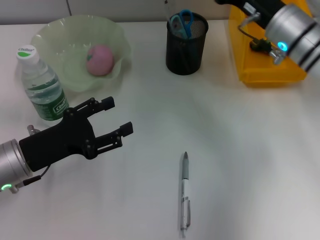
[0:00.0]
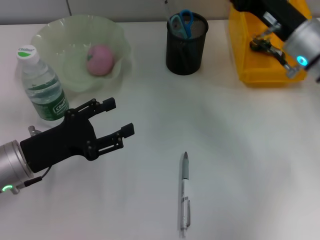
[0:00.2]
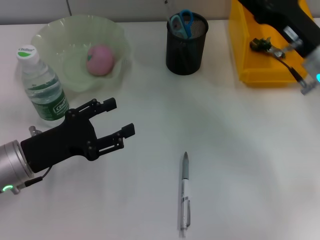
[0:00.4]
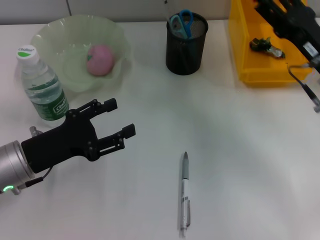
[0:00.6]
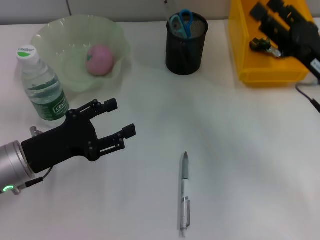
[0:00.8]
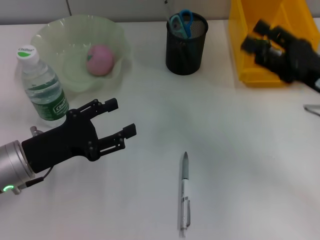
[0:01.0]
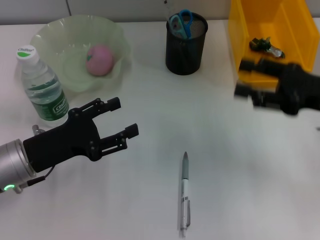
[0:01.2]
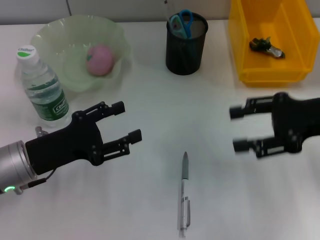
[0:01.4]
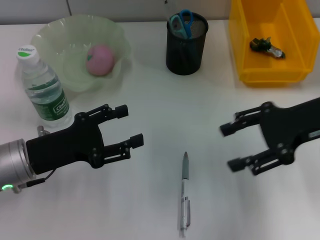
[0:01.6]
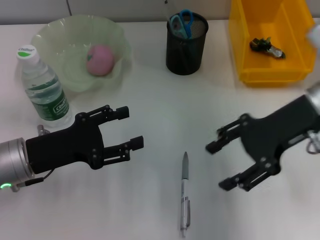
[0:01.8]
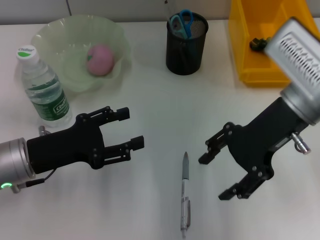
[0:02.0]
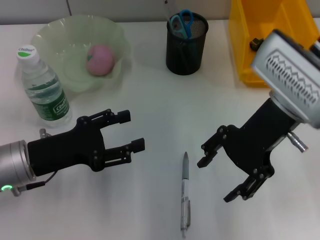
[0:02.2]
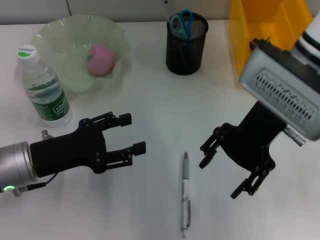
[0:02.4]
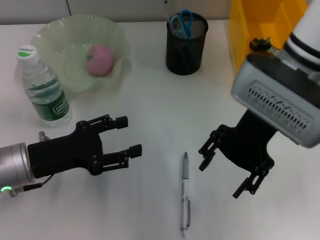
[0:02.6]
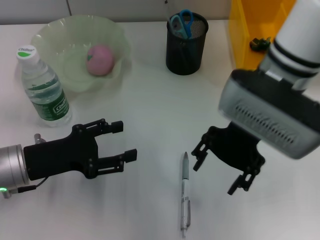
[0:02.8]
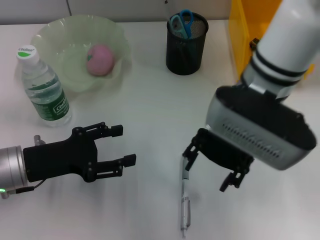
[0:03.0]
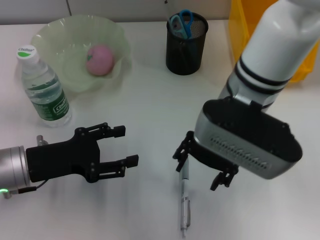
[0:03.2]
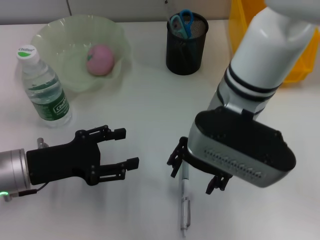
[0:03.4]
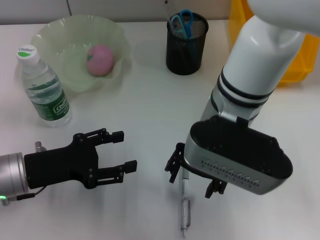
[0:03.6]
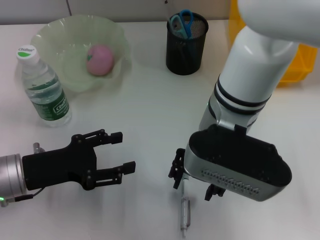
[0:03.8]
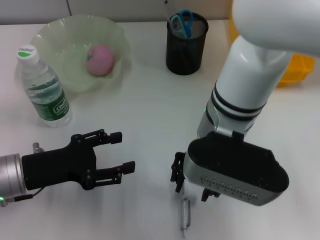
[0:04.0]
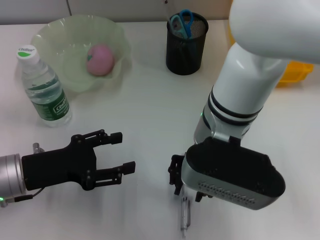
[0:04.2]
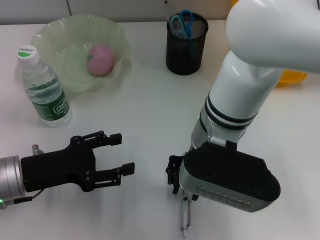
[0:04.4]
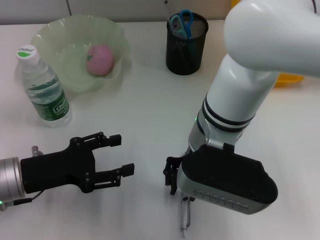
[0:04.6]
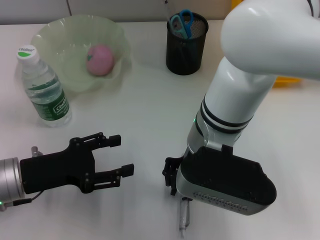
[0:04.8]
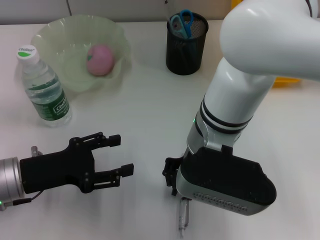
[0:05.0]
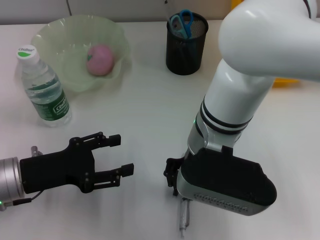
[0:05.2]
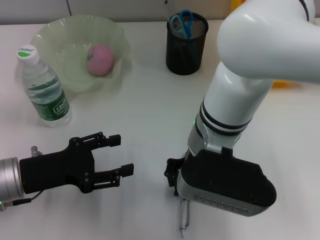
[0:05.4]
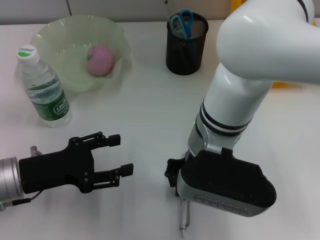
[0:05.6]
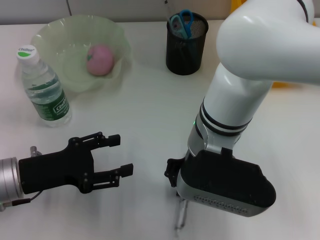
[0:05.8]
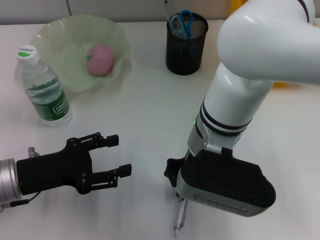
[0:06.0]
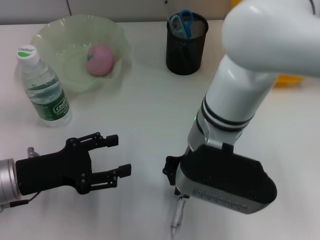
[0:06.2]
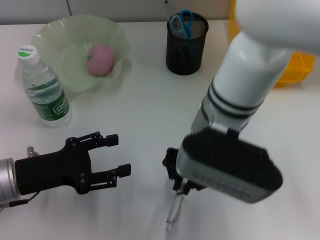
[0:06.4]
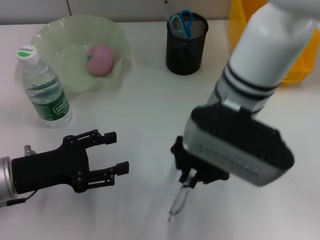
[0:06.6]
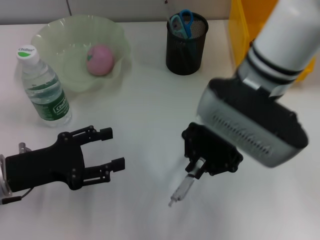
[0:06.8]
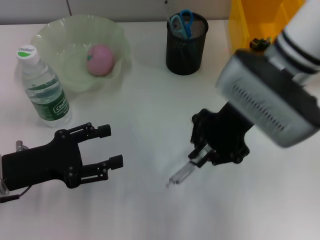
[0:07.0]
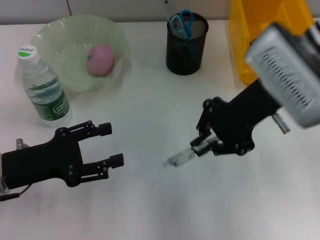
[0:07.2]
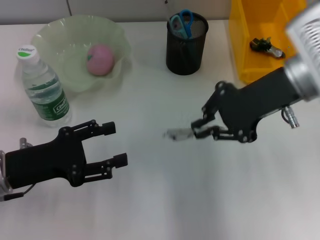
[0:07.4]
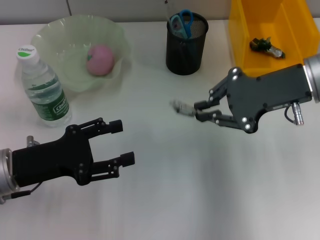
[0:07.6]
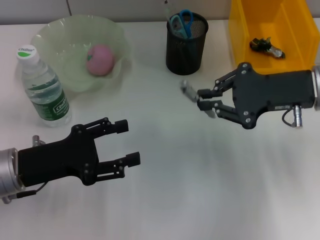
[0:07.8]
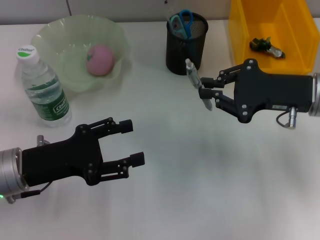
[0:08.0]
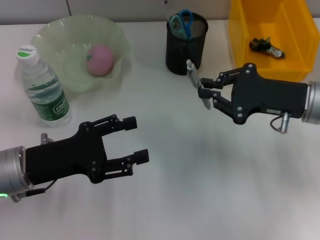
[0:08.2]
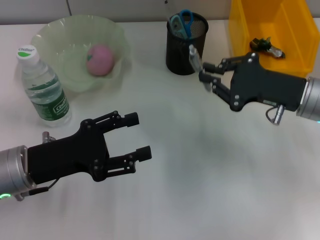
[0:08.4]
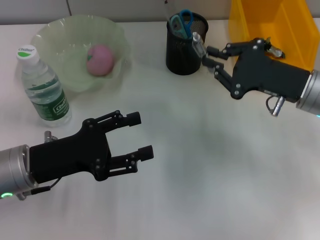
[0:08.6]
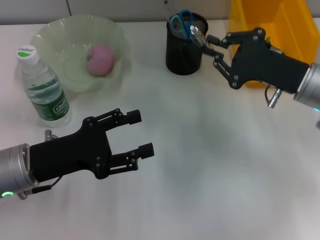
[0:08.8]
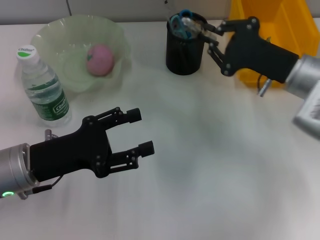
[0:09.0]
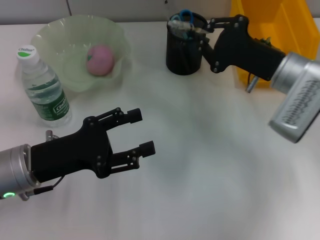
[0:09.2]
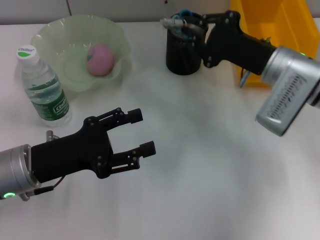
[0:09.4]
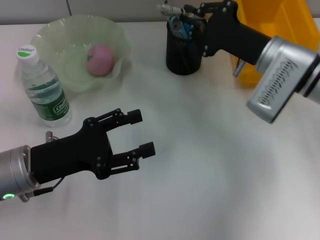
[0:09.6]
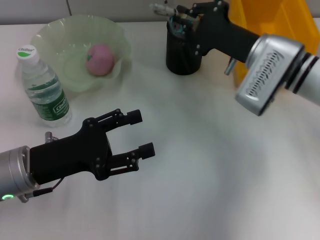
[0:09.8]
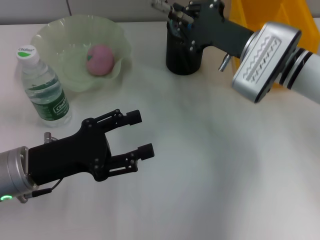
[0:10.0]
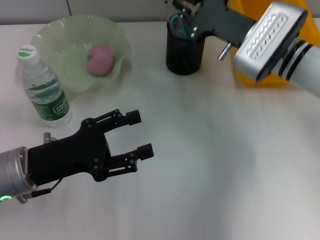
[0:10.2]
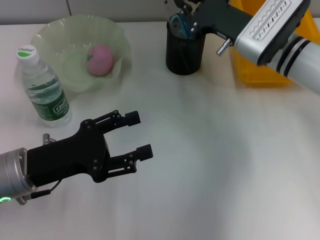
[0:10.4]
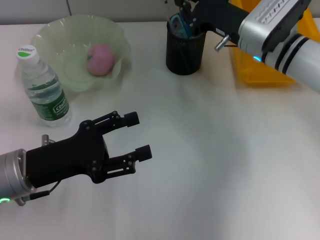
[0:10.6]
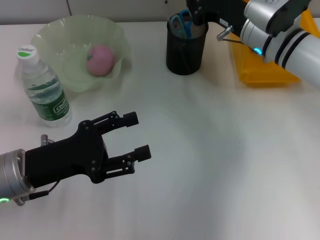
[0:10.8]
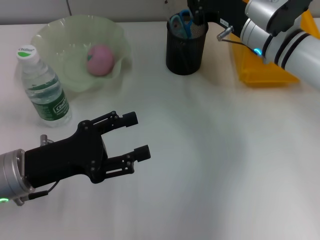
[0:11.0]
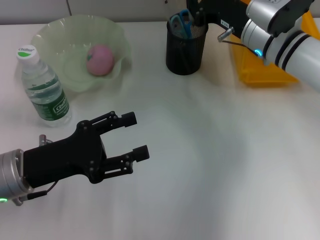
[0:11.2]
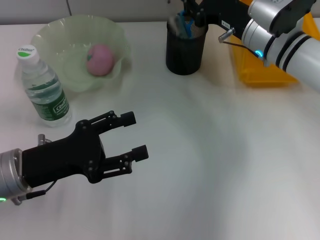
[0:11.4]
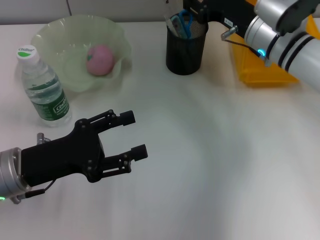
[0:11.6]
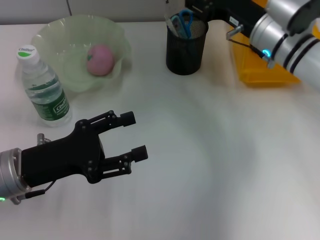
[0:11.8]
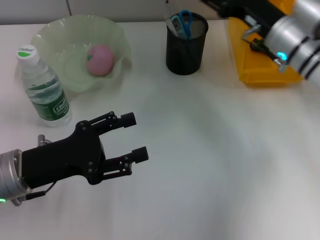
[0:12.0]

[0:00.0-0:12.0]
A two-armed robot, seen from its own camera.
Step, 0:00.0 to 0:05.8: Grab the gray spring-action pen with the right hand.
Step, 0:06.0 to 0:11.6: Place the gray spring-action pen into the pen holder with the right hand.
0:00.0 to 0:01.6: The right gripper goes roughly 10 cm backward and to the right.
0:01.6 to 0:03.0: The right gripper shifts roughly 15 cm to the left.
0:03.0 to 0:04.4: The right gripper moves roughly 5 cm, and closes.
0:04.4 to 0:06.0: Both grippers stay put.
0:06.0 to 0:07.6: The right gripper moves to the right, roughly 15 cm.
0:07.6 to 0:09.0: The right gripper shifts about 5 cm downward.
0:09.0 to 0:10.4: The right gripper heads forward and to the left, covering about 10 cm.
0:10.4 to 0:12.0: The right gripper opens up.

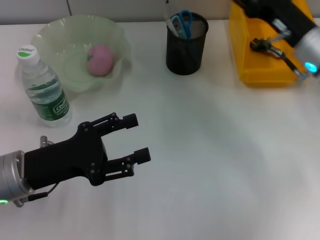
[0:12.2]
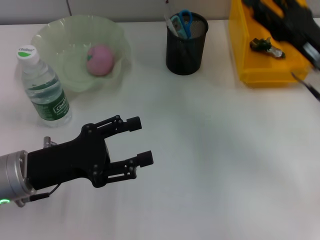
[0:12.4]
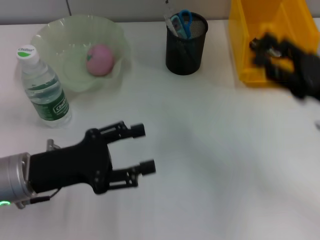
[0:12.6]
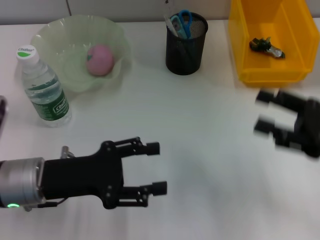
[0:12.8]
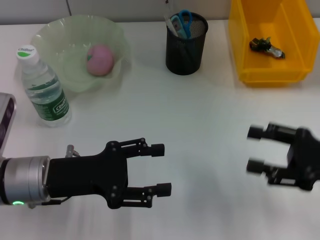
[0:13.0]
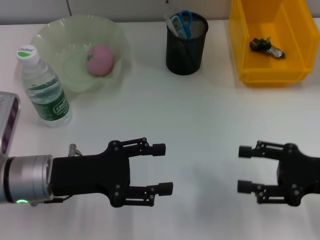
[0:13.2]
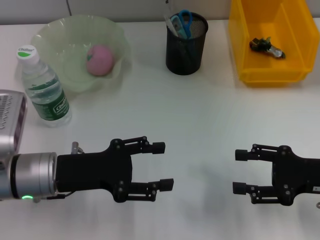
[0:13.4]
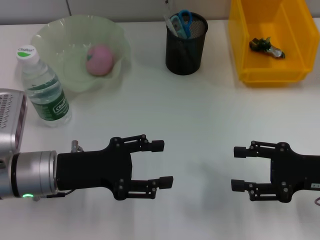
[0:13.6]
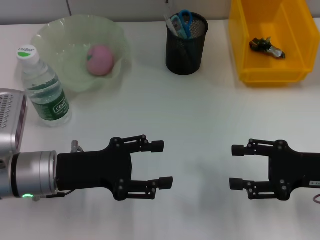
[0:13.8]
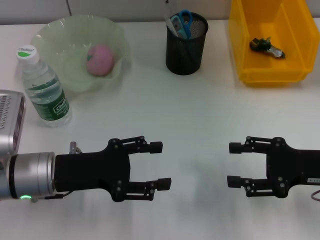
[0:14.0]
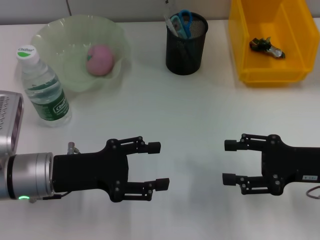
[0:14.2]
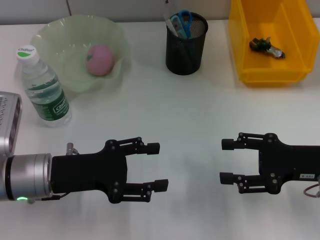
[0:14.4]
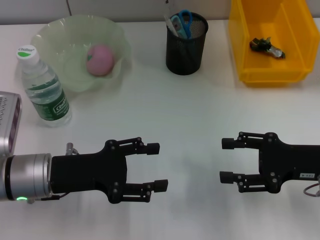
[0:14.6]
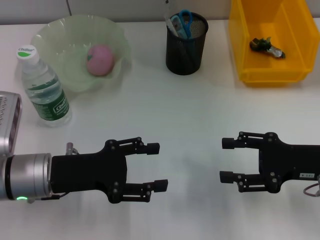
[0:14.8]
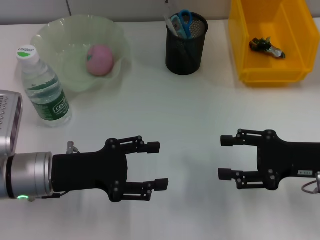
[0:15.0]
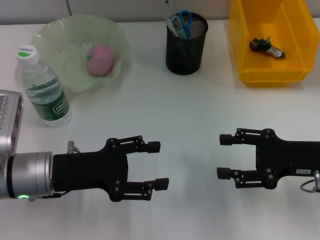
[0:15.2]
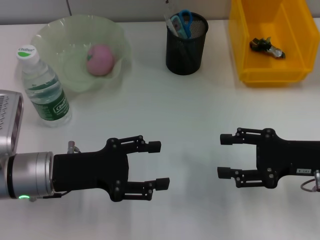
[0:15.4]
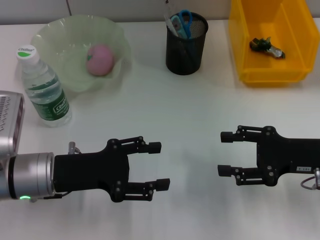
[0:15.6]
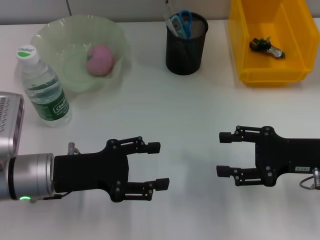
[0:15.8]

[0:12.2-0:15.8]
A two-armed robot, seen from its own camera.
0:12.2 to 0:14.0: The right gripper moves backward and to the right, some 15 cm.
0:14.0 to 0:15.8: The grippers stay close to where they were, moving slightly.

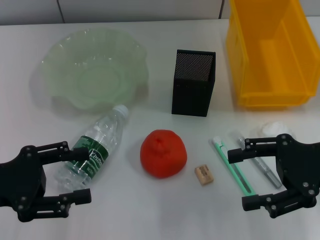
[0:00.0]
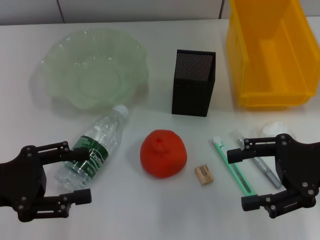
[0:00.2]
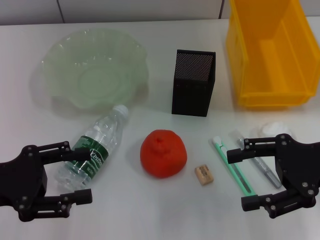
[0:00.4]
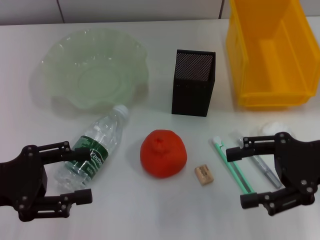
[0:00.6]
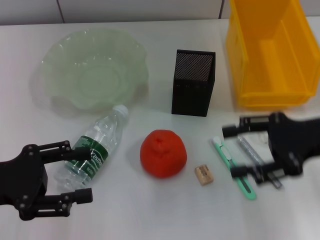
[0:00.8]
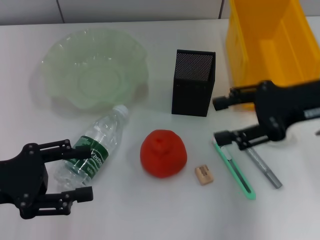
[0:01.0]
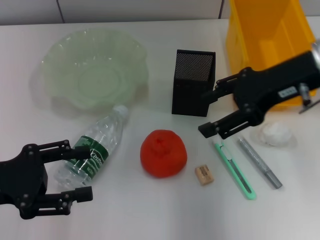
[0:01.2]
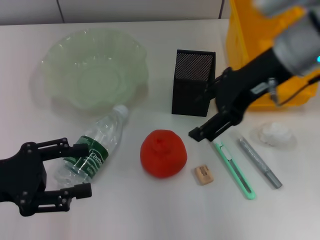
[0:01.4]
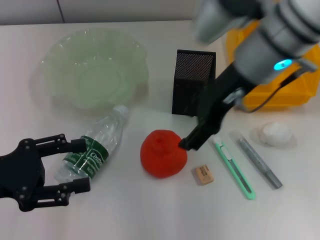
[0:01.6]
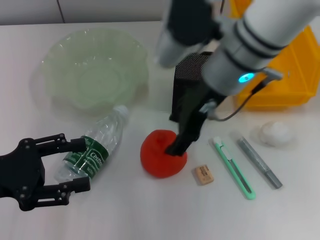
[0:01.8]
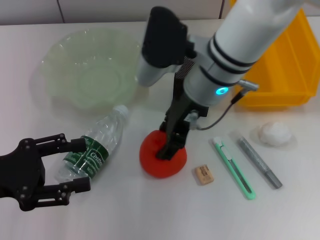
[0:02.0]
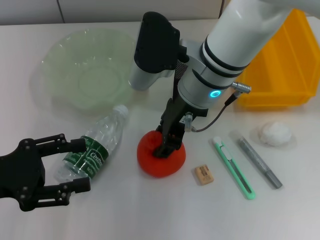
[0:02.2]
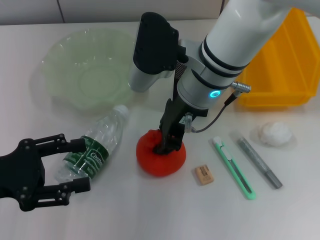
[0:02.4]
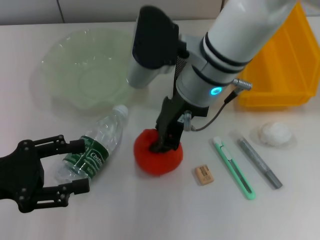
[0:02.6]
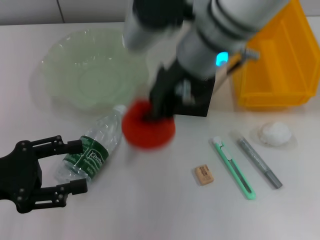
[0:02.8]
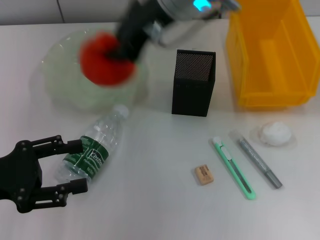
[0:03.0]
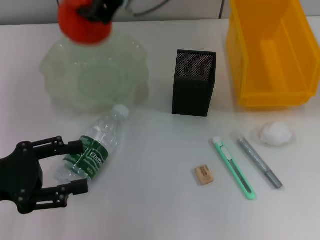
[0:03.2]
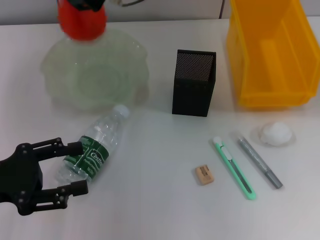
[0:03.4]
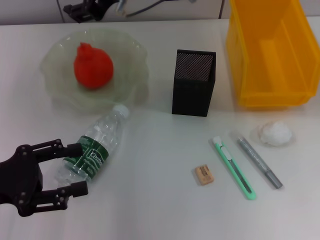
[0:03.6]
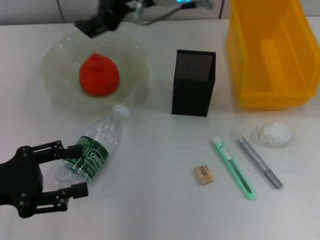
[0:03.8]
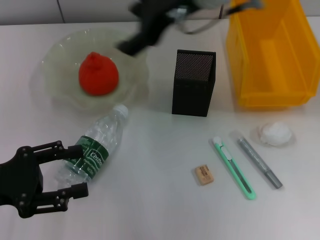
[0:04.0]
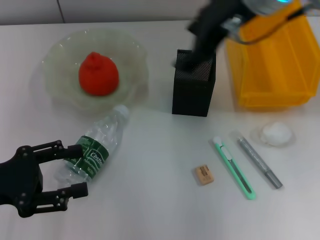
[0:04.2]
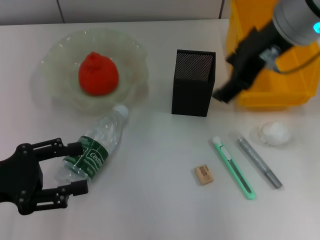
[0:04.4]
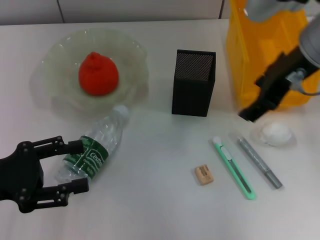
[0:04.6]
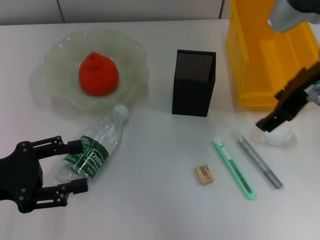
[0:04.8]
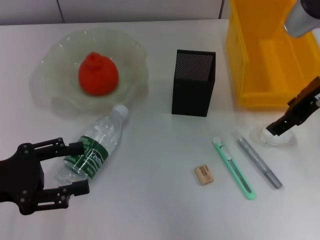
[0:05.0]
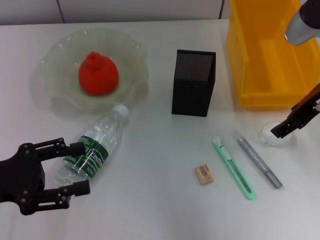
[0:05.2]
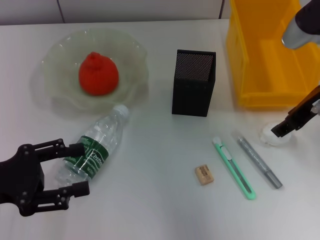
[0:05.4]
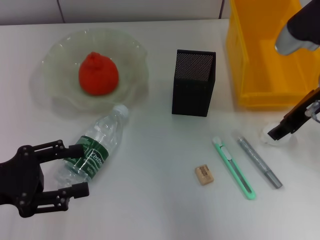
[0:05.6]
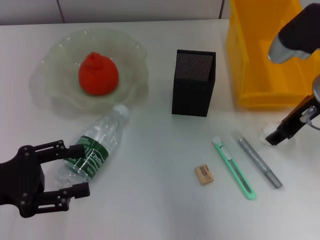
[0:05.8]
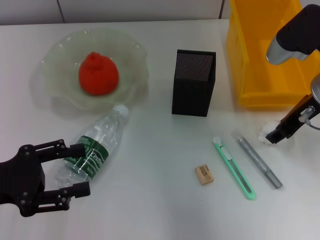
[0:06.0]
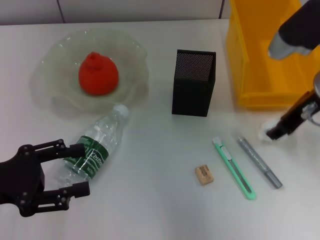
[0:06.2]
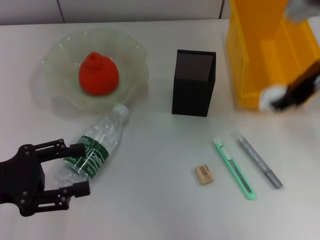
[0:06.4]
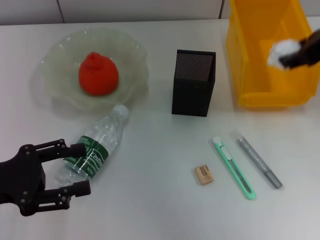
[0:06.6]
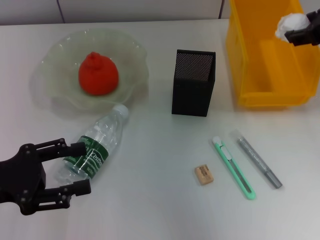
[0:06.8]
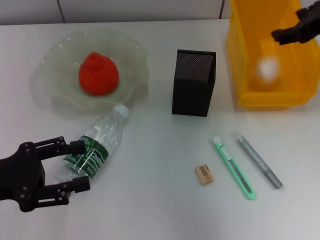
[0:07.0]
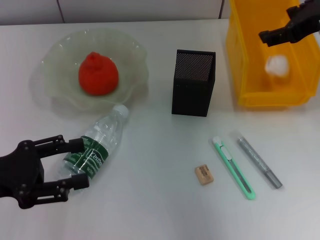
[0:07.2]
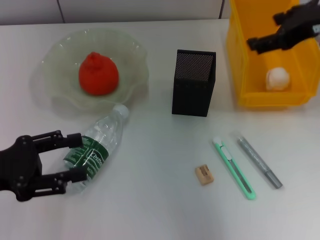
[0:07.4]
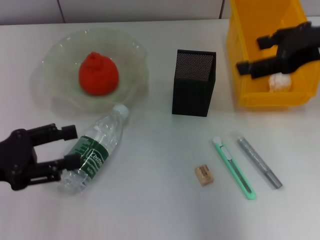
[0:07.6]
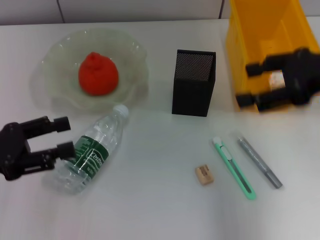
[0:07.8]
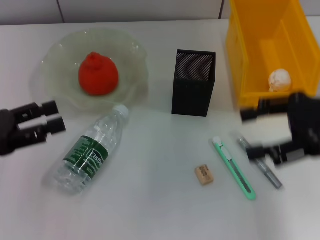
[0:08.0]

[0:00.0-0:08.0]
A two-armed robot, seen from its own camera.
Step, 0:00.0 to 0:02.4: Grab the orange with the right hand.
Step, 0:02.6 to 0:03.8: Place the orange into the fruit bowl with the right hand.
Step, 0:04.0 to 0:05.6: Grab the paper ball with the right hand.
Step, 0:06.0 to 0:07.2: Place the paper ball into the trash can with the right hand.
0:00.0 to 0:01.6: The right gripper shifts roughly 20 cm to the left, upward and forward.
0:01.6 to 0:03.2: The right gripper travels to the left and forward by roughly 10 cm, and closes up.
0:03.2 to 0:04.8: The right gripper moves to the right, approximately 20 cm, and opens up.
0:04.8 to 0:06.4: The right gripper reaches approximately 10 cm downward, then returns, and closes.
0:06.4 to 0:08.0: The right gripper heads to the right and backward, covering some 10 cm, and opens up.
